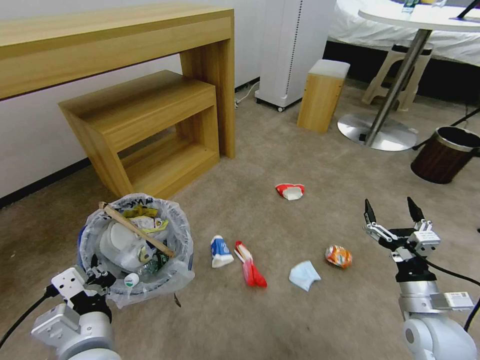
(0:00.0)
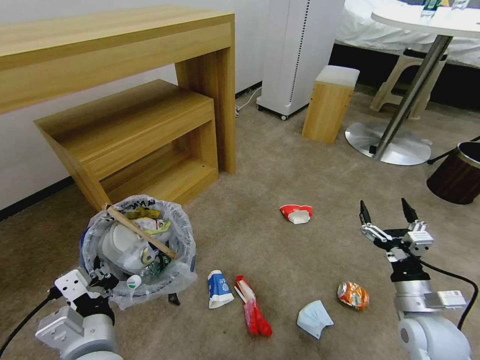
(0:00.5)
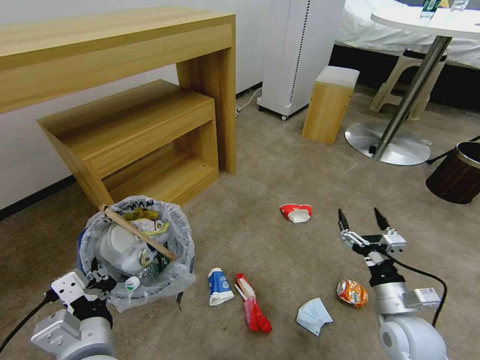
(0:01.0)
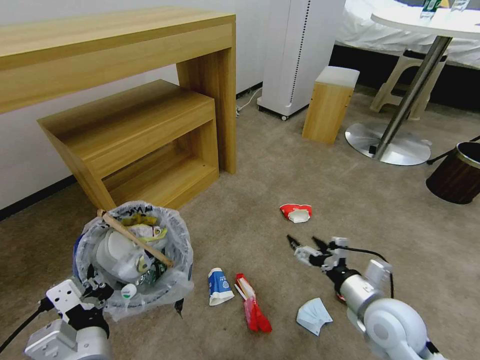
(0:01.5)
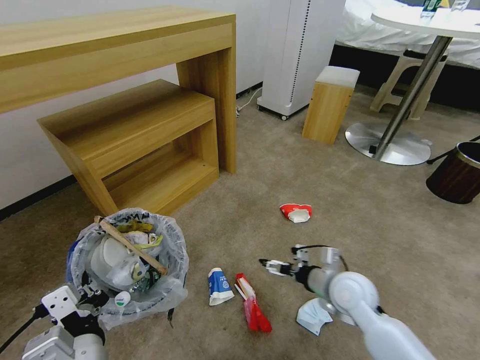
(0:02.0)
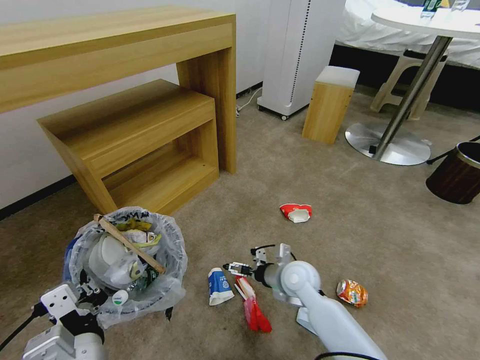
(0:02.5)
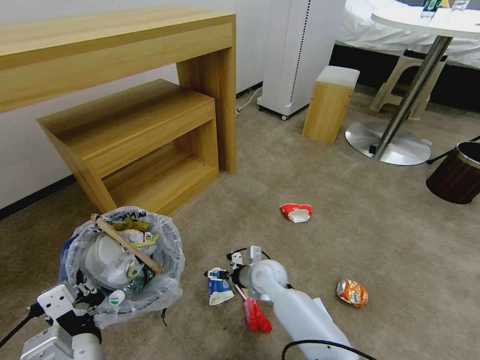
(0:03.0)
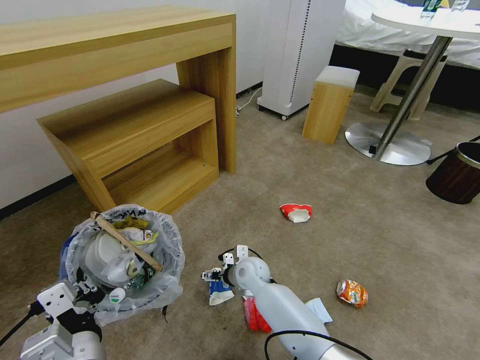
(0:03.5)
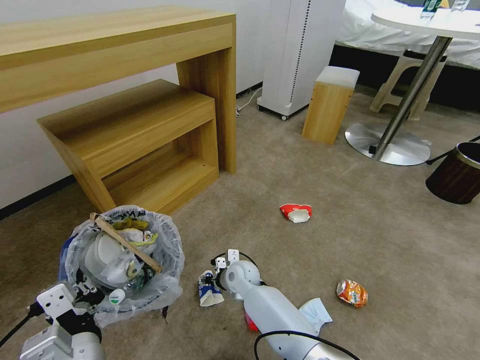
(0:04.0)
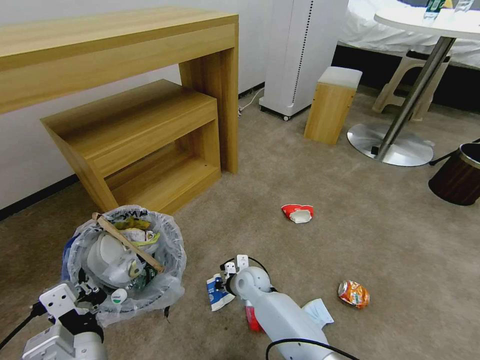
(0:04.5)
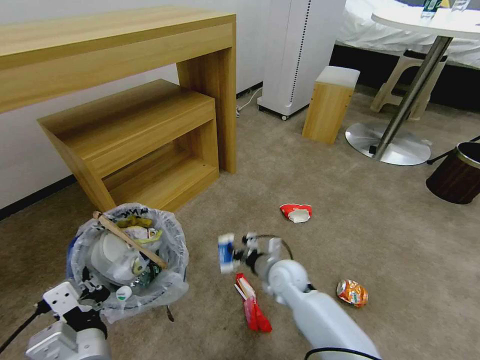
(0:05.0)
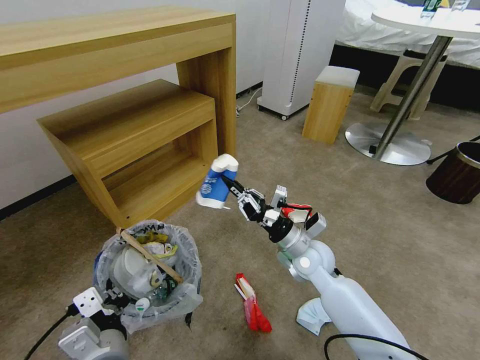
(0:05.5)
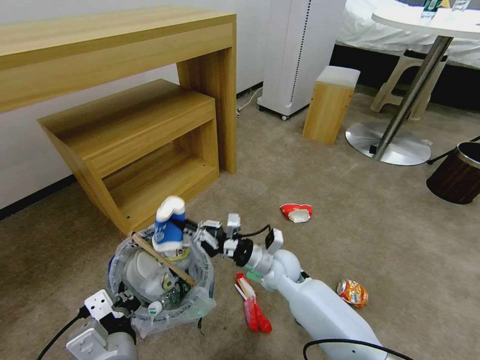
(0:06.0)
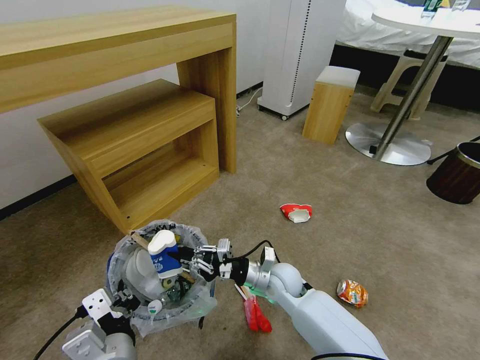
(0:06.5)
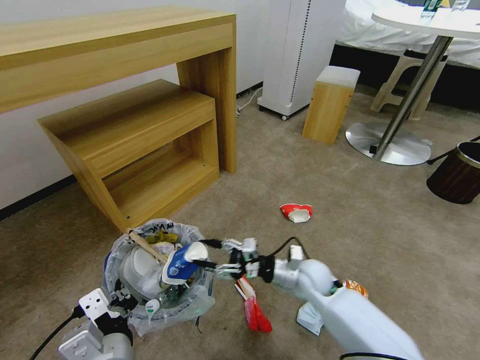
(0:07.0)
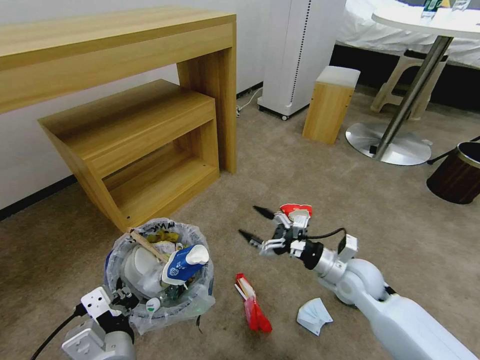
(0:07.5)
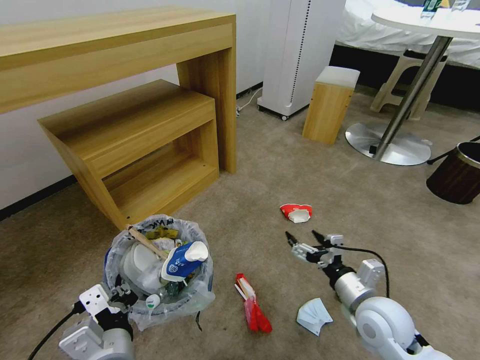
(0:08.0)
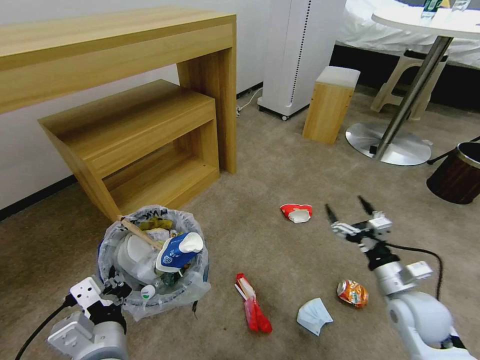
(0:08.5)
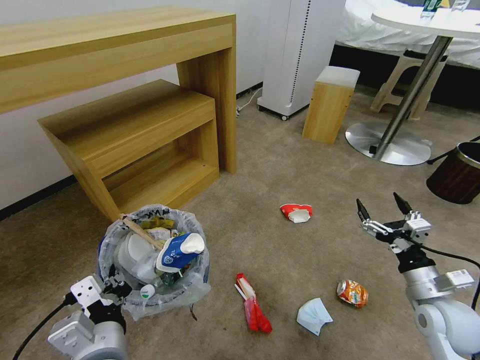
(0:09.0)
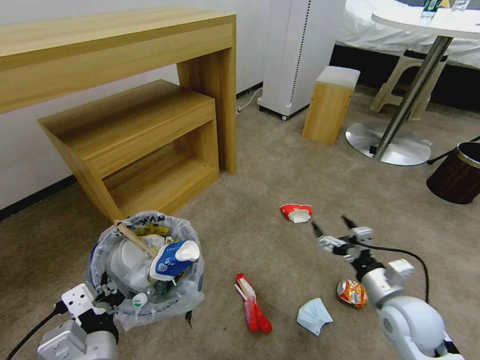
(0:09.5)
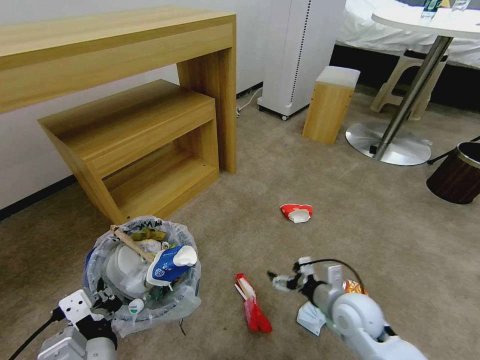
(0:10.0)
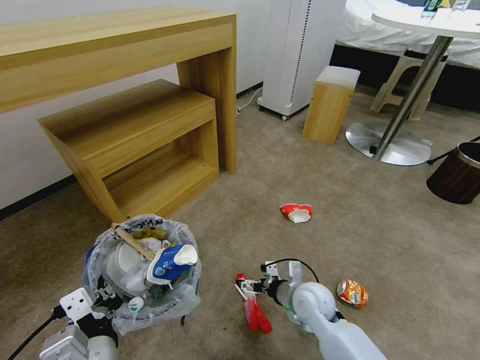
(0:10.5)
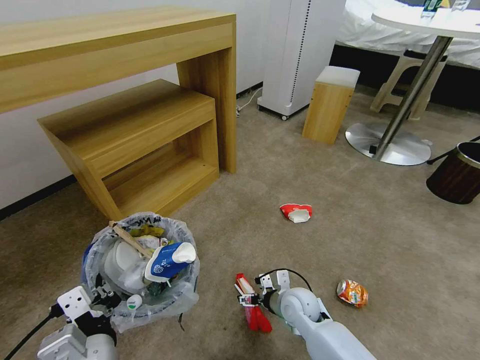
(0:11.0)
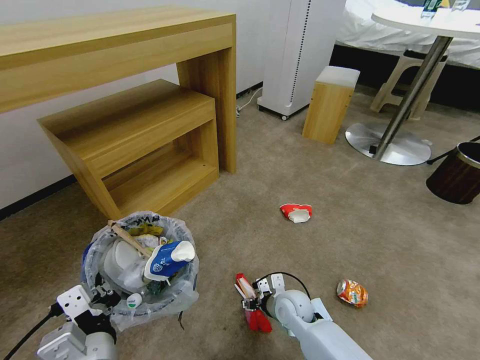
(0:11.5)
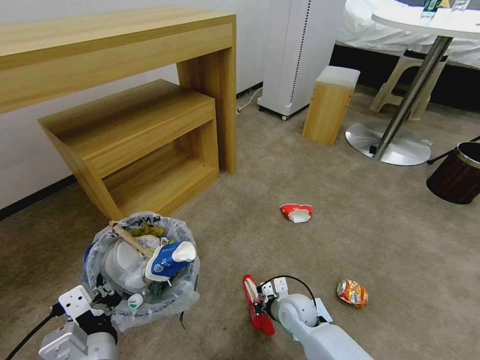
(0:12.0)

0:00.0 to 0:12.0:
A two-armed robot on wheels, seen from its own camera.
Task of the whole recording: Pick up the trash bin and place the garbage on the floor into it.
0:00.0 to 0:02.0: The right gripper heads to the left and forward, covering about 15 cm.
0:02.0 to 0:04.0: The right gripper goes roughly 25 cm to the left and downward, and closes up.
0:04.0 to 0:06.0: The right gripper shifts approximately 15 cm upward and to the right, and closes its fingers.
0:06.0 to 0:08.0: The right gripper moves to the right and backward, roughly 20 cm, and opens its fingers.
0:08.0 to 0:10.0: The right gripper travels to the right and back again, some 10 cm each way.
0:10.0 to 0:12.0: The right gripper heads downward and to the left, covering some 15 cm, and closes.

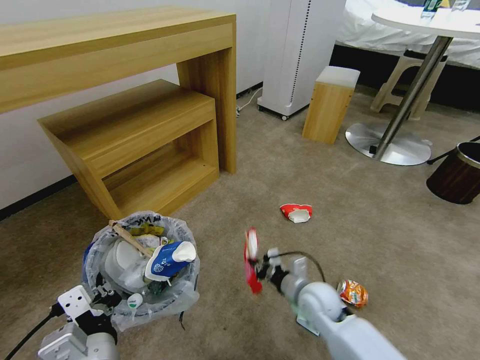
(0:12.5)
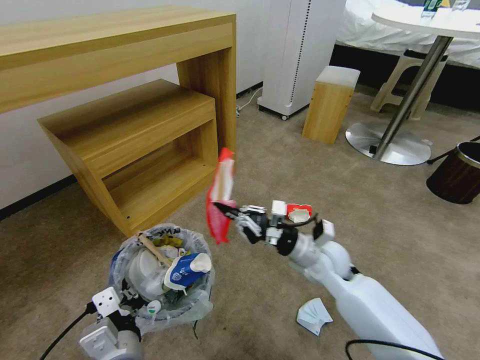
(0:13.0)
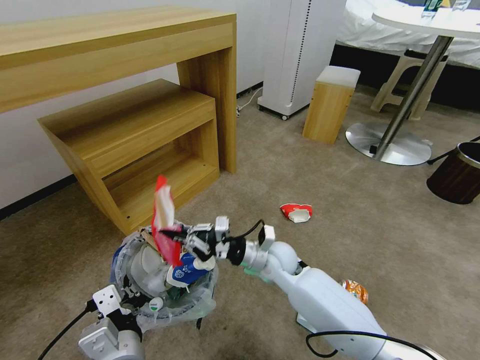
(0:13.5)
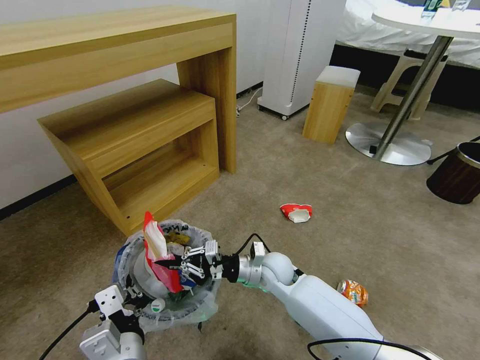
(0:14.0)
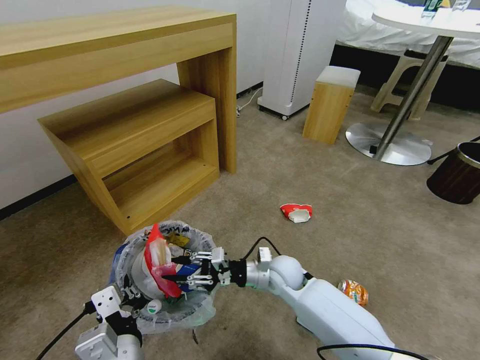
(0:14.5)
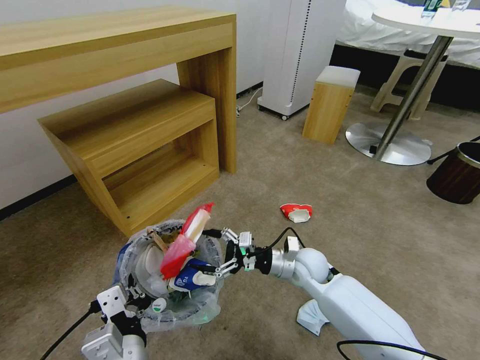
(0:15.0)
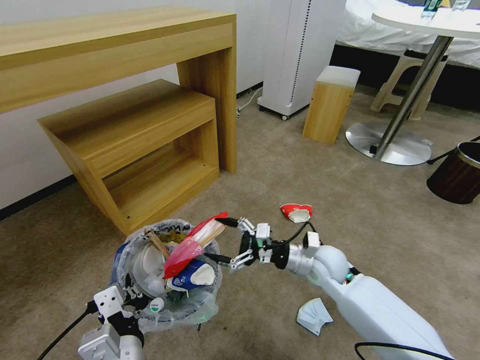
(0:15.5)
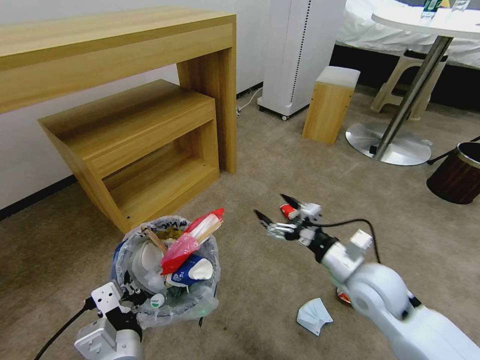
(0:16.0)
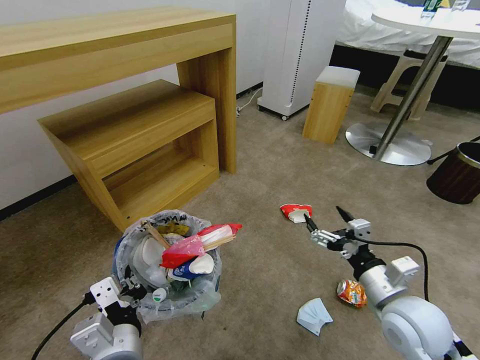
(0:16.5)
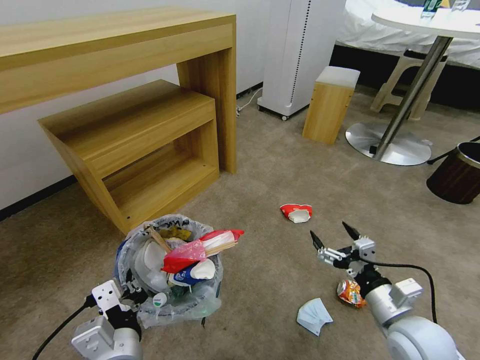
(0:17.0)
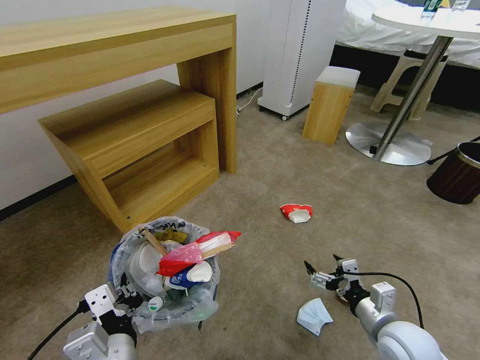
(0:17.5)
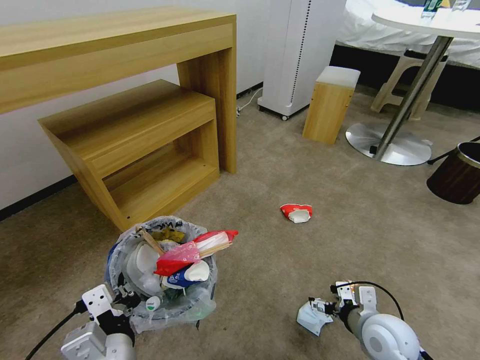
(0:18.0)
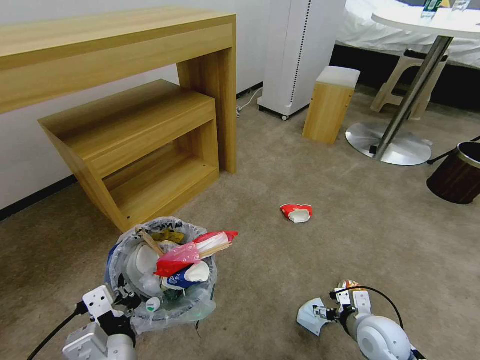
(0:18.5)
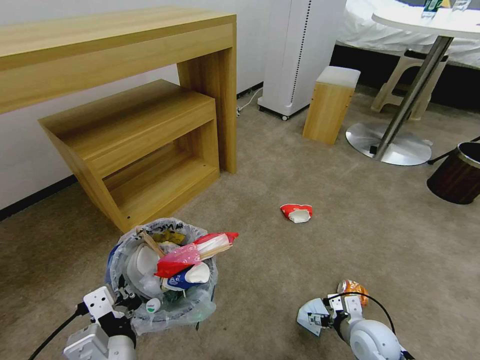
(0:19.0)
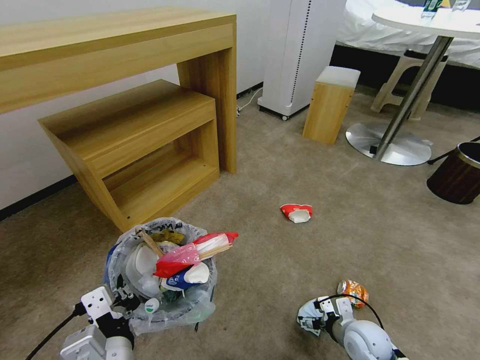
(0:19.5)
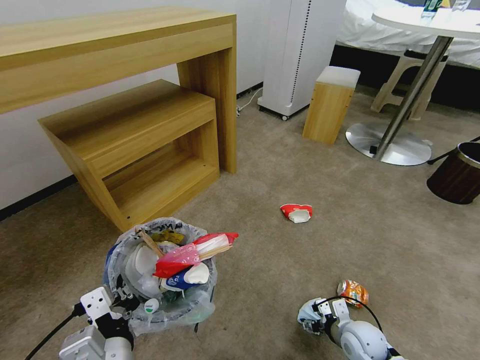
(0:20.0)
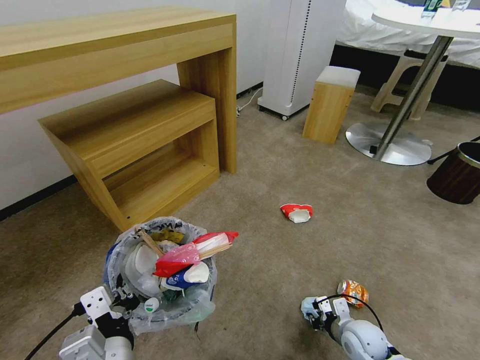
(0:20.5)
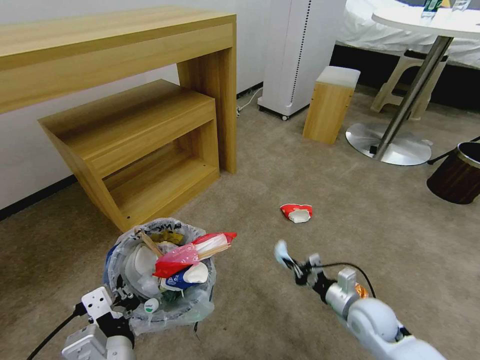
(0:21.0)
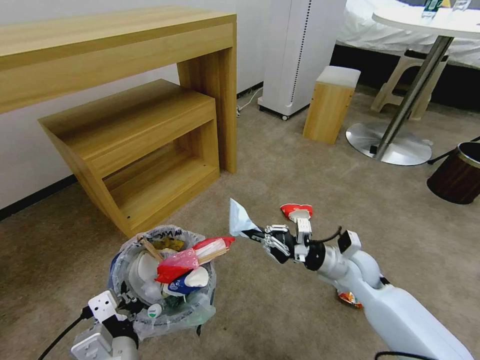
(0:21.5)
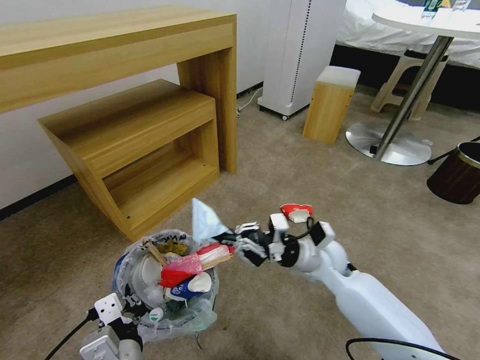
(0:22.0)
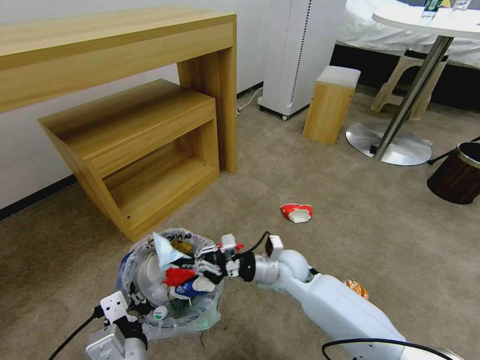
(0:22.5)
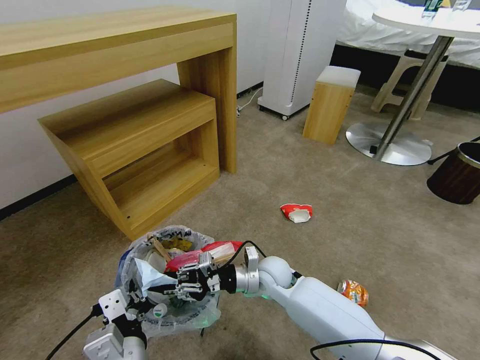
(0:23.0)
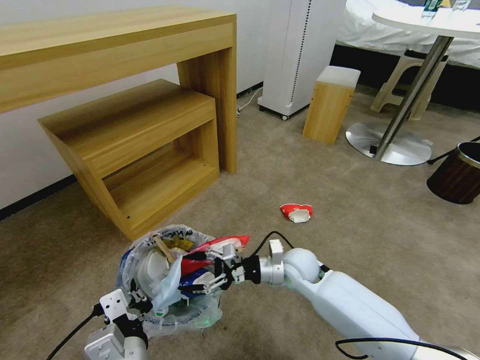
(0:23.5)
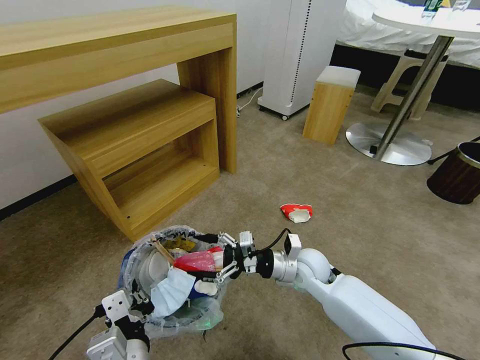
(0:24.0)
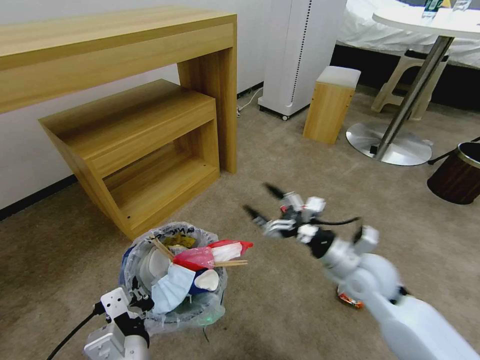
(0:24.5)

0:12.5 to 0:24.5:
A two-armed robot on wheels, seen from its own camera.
Task of the whole recording: Pick up the trash bin and place the garbage on the floor into it.
0:12.5 to 0:14.5: The right gripper moves to the left and forward, some 10 cm, and opens up.
0:14.5 to 0:16.5: The right gripper goes approximately 25 cm to the right, backward and upward, and opens.
0:16.5 to 0:18.5: The right gripper heads downward, covering some 15 cm.
0:18.5 to 0:20.5: The right gripper travels downward by some 10 cm, and closes.
0:20.5 to 0:22.5: The right gripper is displaced to the left, forward and upward by some 25 cm.
0:22.5 to 0:24.5: The right gripper goes about 20 cm to the right, upward and backward, and opens up.

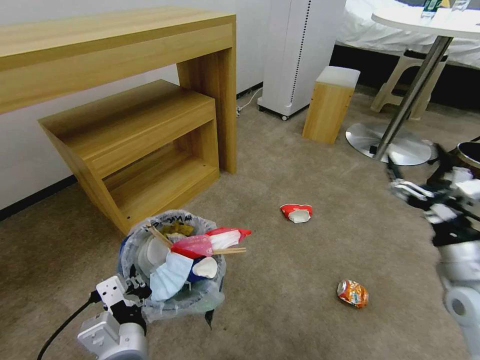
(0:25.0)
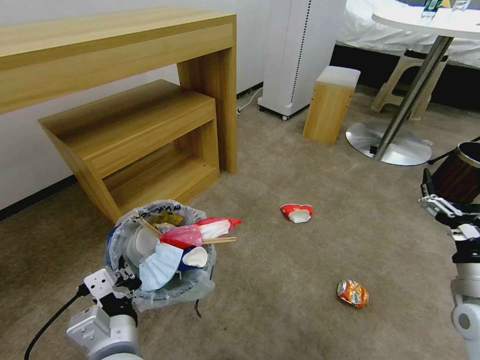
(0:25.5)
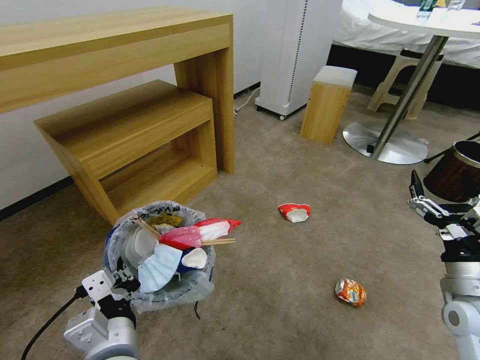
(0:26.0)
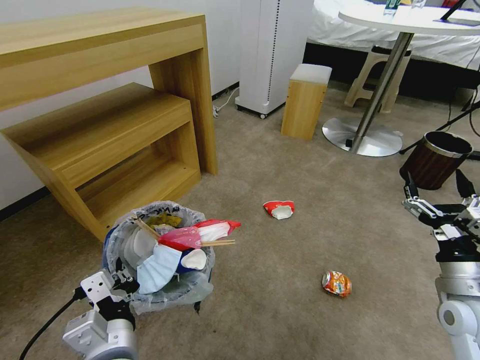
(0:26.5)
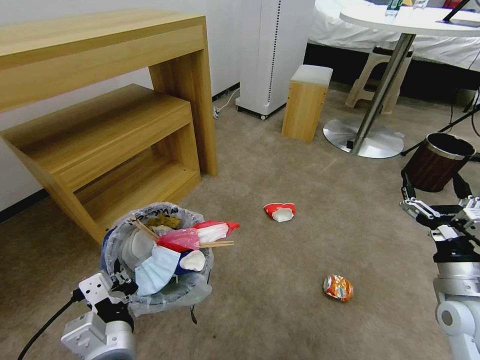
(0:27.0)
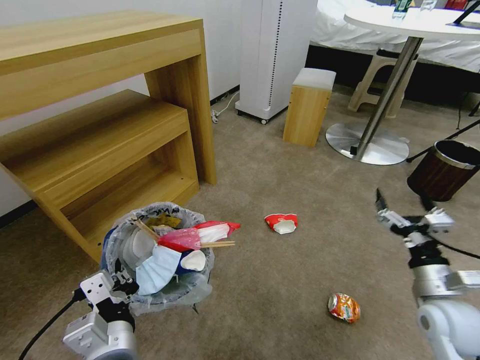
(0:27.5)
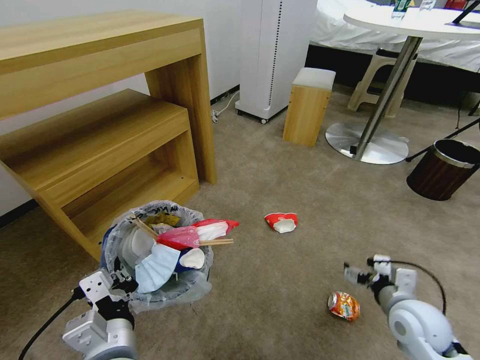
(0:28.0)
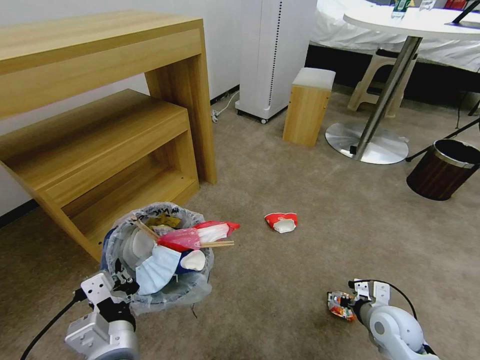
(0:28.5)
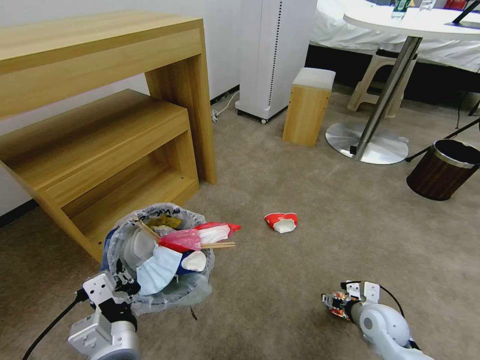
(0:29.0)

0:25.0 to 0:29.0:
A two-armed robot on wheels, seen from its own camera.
Task of the whole recording: Pick up the trash bin and place the garbage on the floor into it.
0:25.0 to 0:27.0: The right gripper travels downward by some 5 cm.
0:27.0 to 0:29.0: The right gripper travels downward by about 15 cm.
